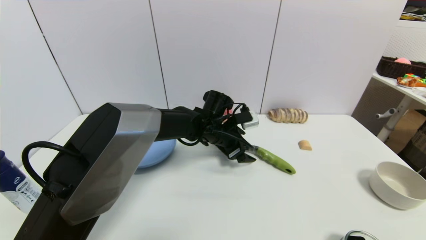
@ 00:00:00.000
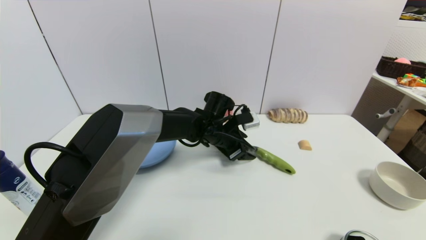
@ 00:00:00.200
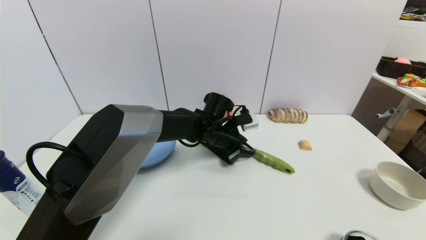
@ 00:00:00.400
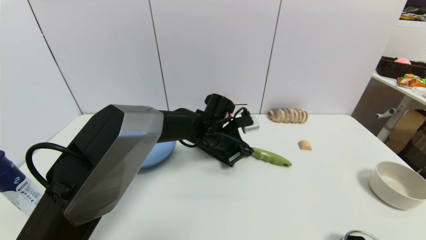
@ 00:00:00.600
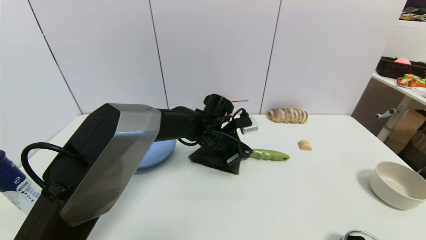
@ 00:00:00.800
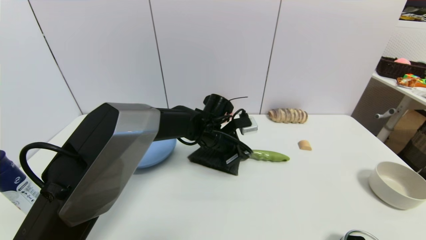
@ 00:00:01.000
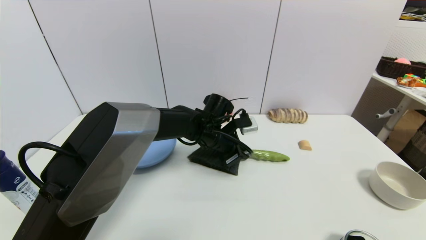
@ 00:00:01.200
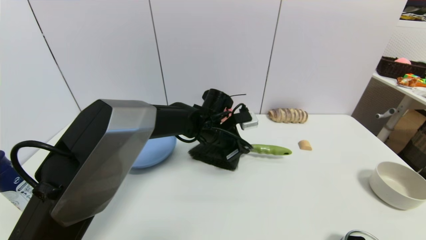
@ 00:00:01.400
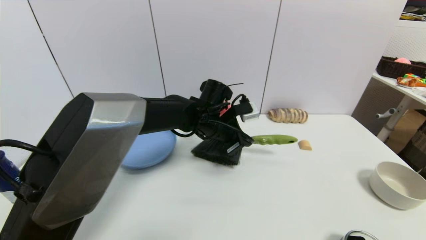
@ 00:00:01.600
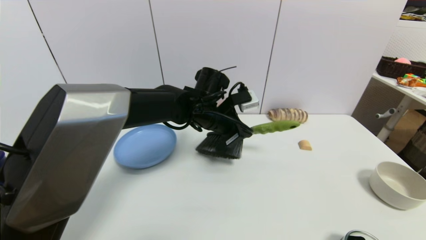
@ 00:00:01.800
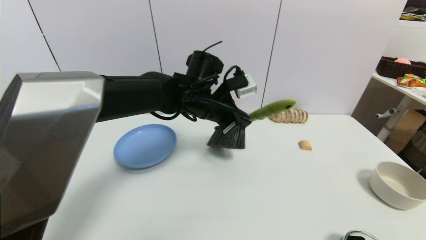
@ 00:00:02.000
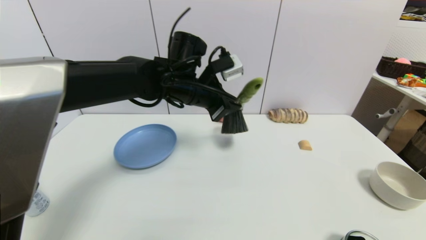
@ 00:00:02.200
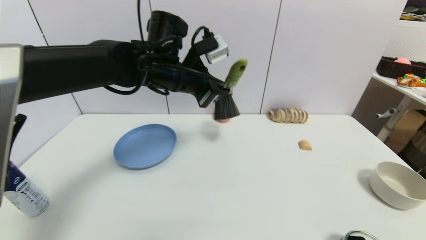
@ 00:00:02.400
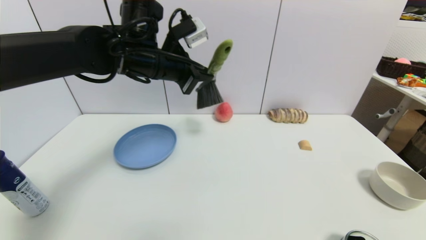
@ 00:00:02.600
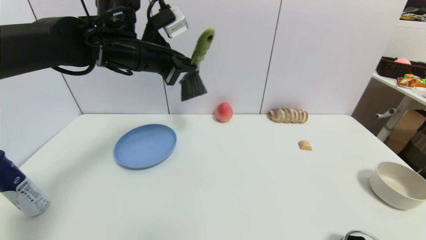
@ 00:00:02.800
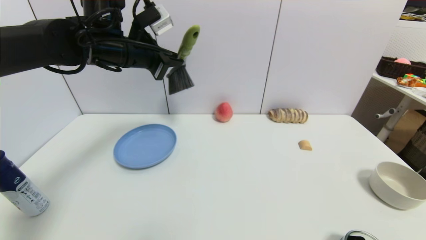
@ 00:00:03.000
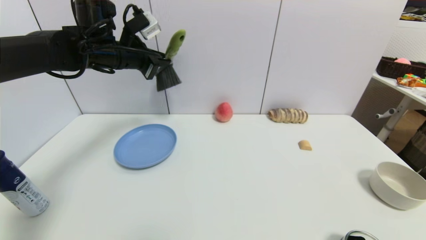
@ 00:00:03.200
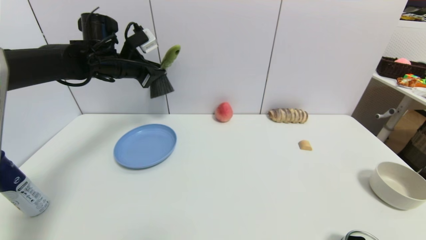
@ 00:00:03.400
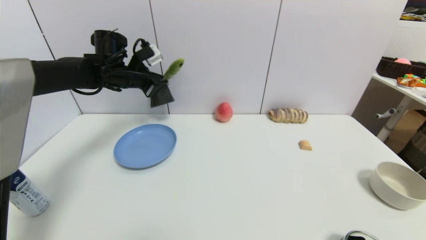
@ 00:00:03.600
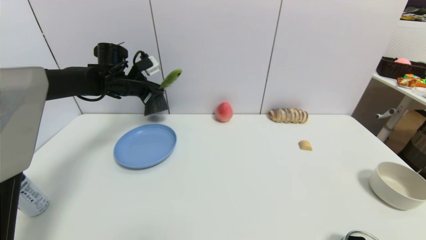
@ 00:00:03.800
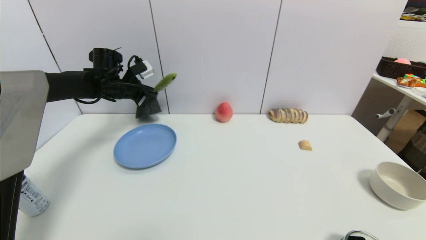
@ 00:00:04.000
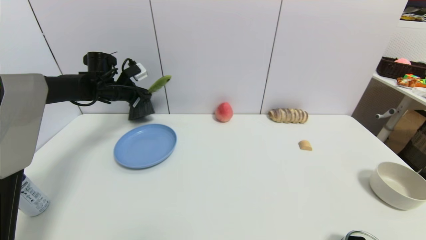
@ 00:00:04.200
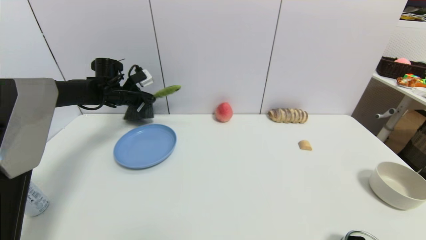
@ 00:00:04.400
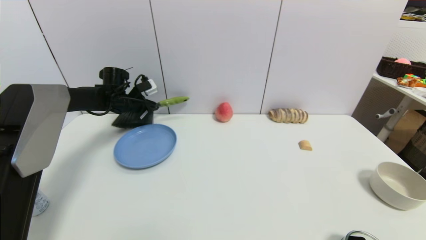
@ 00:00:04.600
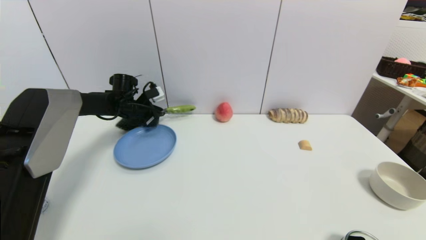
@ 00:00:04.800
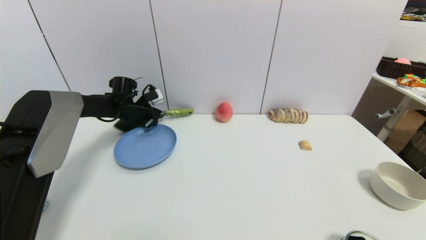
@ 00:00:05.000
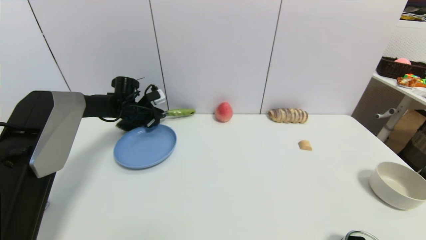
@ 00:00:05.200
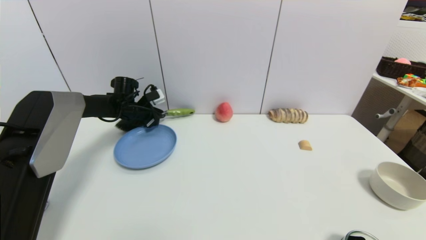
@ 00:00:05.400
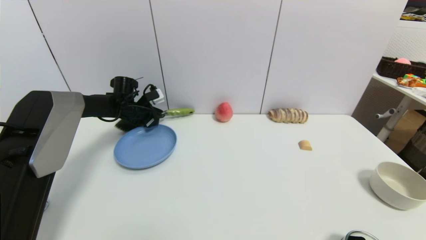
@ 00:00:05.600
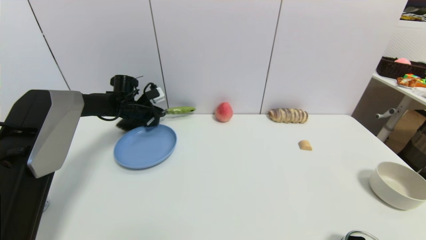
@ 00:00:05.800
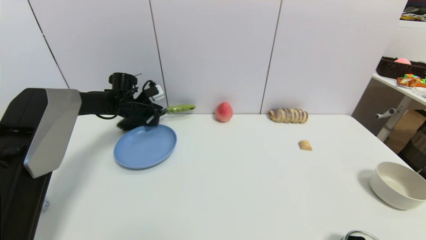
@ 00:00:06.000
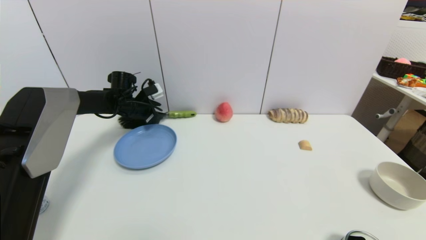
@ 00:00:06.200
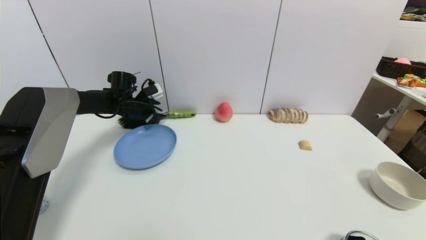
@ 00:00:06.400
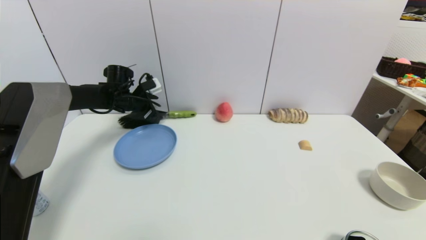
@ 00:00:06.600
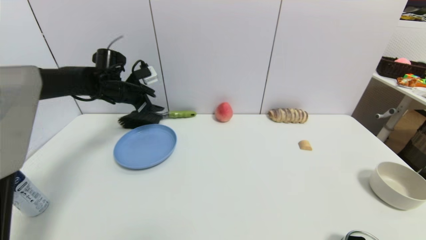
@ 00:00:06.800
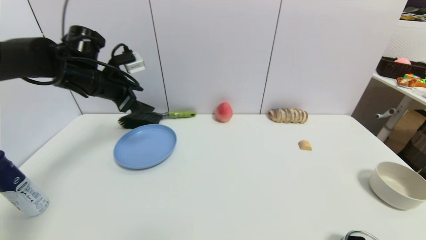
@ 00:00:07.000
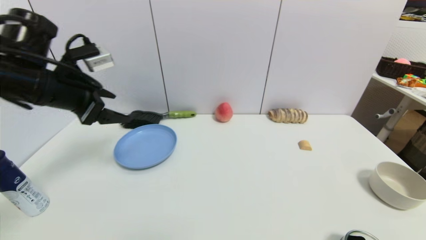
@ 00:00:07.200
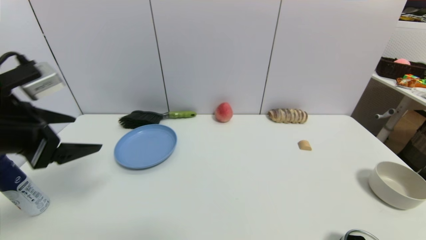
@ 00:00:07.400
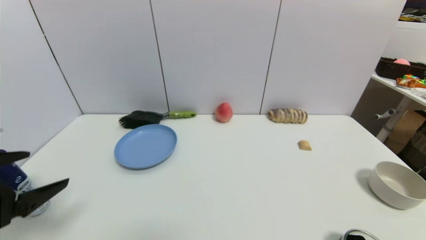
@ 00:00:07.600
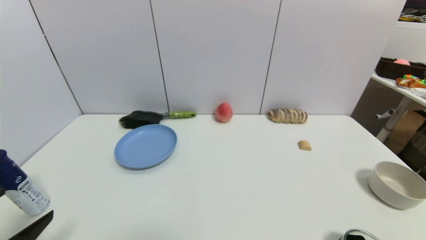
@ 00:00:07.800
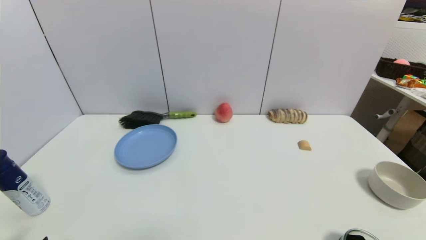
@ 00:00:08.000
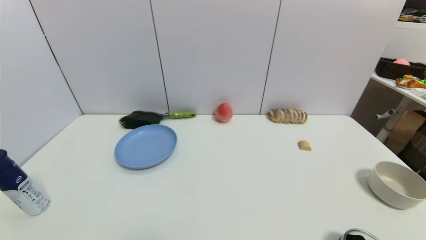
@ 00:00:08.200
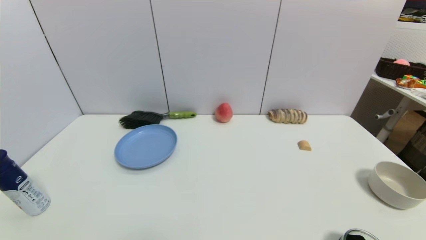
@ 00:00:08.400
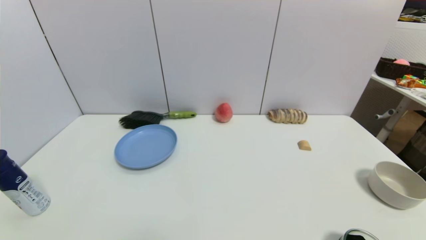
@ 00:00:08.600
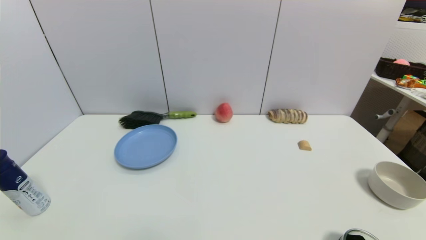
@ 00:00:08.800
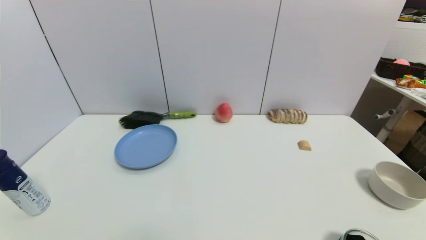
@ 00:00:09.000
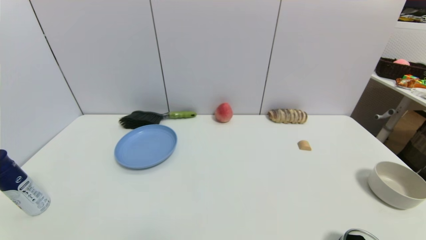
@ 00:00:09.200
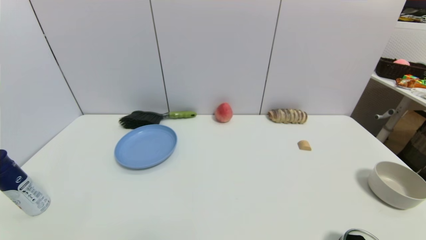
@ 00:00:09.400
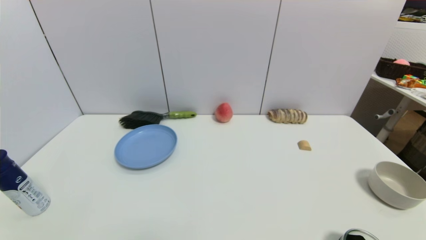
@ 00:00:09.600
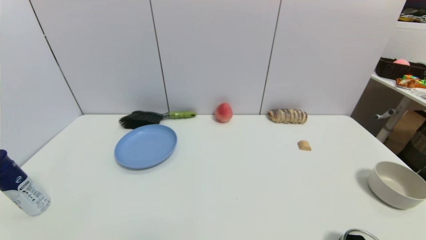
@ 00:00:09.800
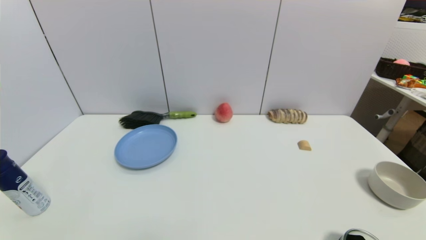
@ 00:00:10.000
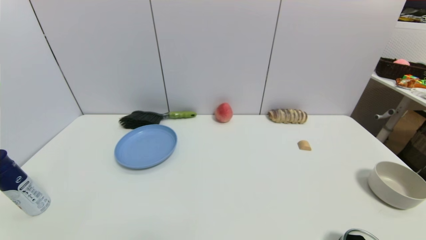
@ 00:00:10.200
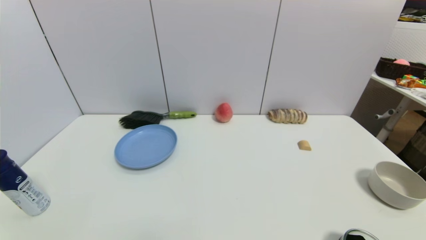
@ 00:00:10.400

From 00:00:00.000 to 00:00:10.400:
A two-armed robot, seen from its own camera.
Task of the whole recording: put the brush in the designated position.
Step, from 00:00:00.000 to 00:00:02.000: Grasp the brush with left gripper.
Step, from 00:00:02.200 to 00:00:06.600: Place the brush on the table with left gripper.
From 00:00:00.000 to 00:00:01.400: The left gripper closes its fingers.
From 00:00:01.400 to 00:00:03.000: The left gripper is displaced upward and to the left by approximately 25 cm.
From 00:00:03.000 to 00:00:04.400: The left gripper goes roughly 20 cm downward, forward and to the left.
From 00:00:04.400 to 00:00:06.000: The left gripper moves approximately 5 cm.
From 00:00:06.000 to 00:00:07.400: The left gripper travels backward and upward by about 35 cm, and opens.
From 00:00:07.400 to 00:00:09.000: The left gripper is displaced downward and backward by some 30 cm.
From 00:00:09.000 to 00:00:10.400: The two grippers keep their place.
